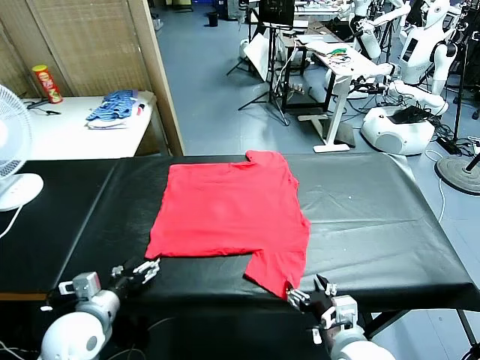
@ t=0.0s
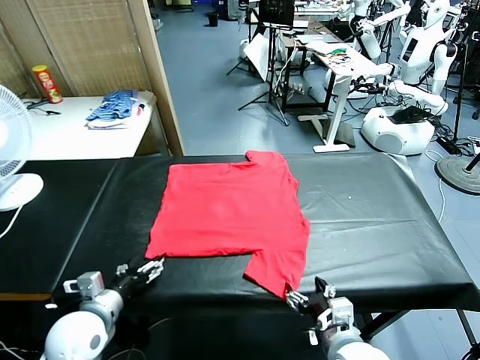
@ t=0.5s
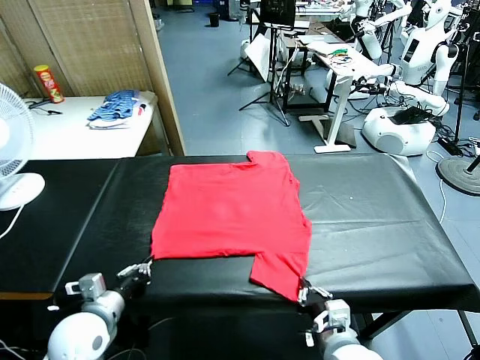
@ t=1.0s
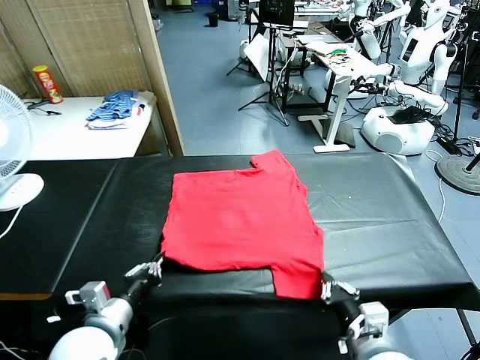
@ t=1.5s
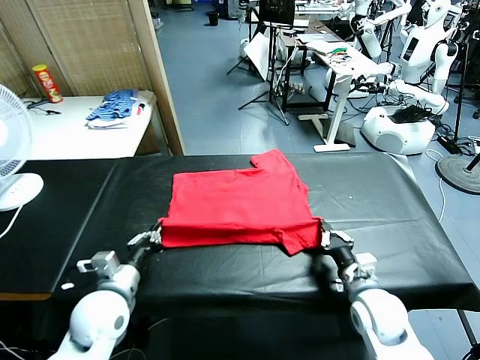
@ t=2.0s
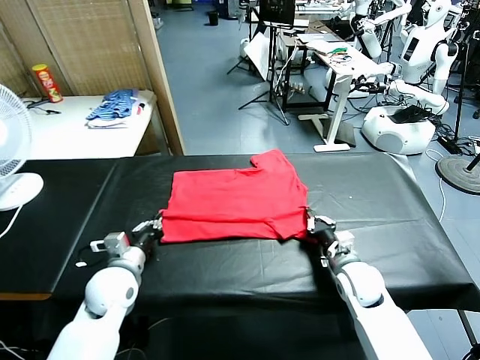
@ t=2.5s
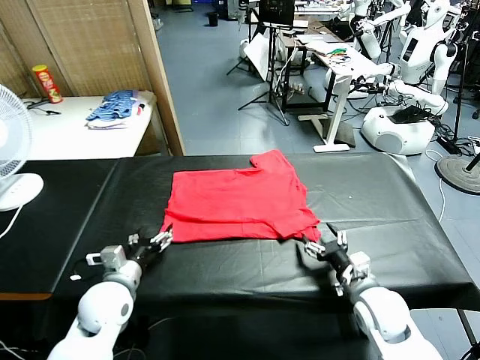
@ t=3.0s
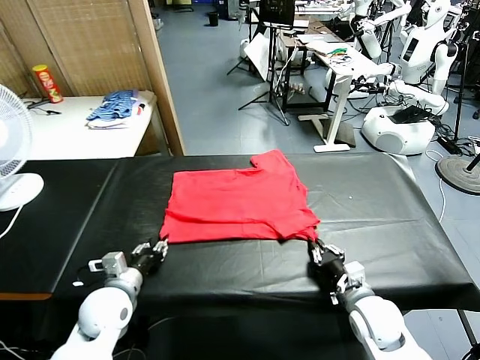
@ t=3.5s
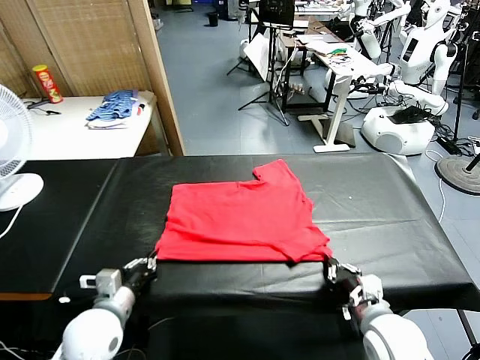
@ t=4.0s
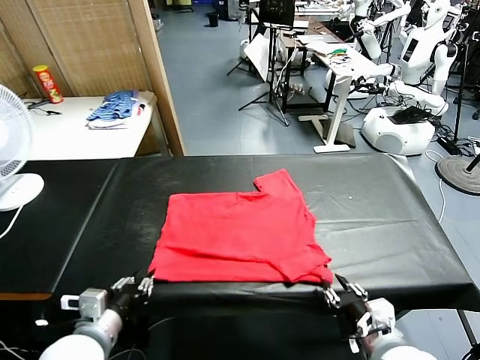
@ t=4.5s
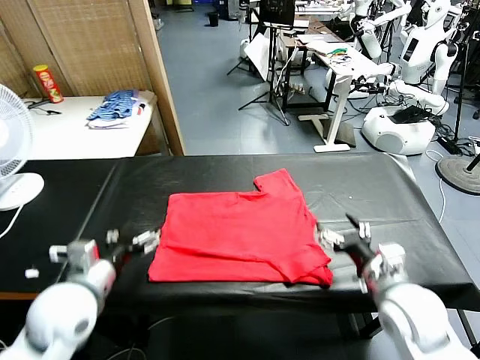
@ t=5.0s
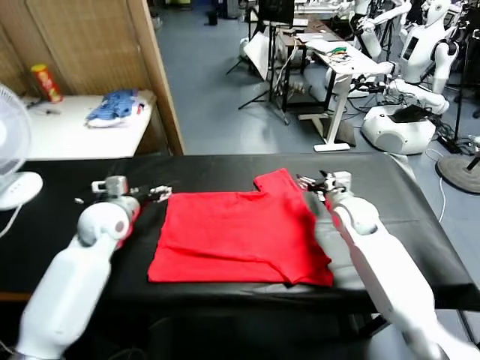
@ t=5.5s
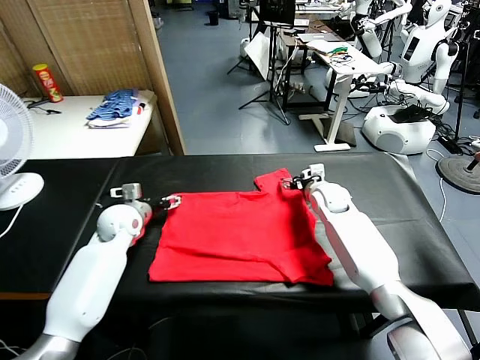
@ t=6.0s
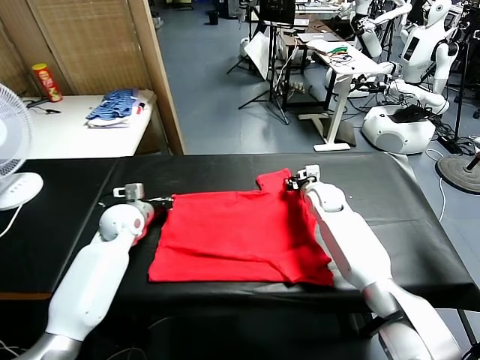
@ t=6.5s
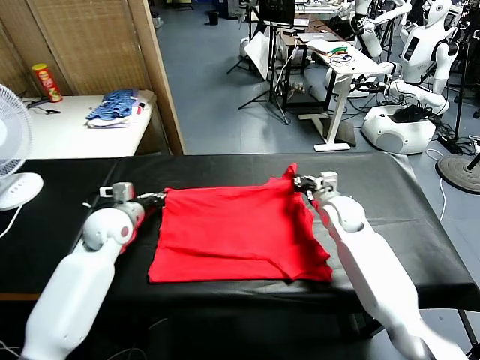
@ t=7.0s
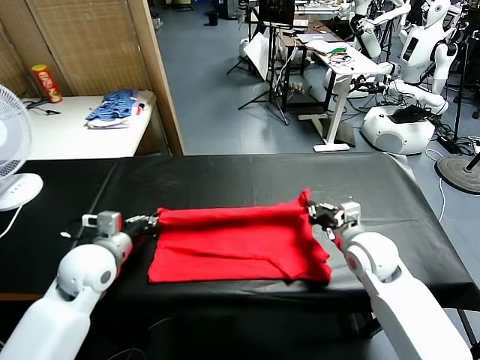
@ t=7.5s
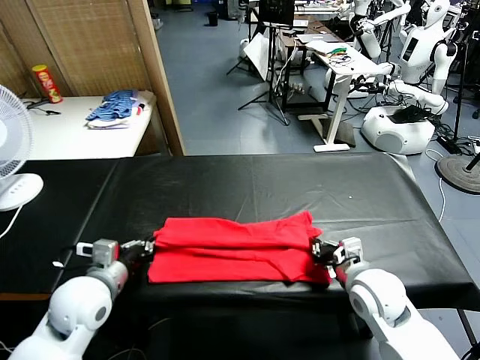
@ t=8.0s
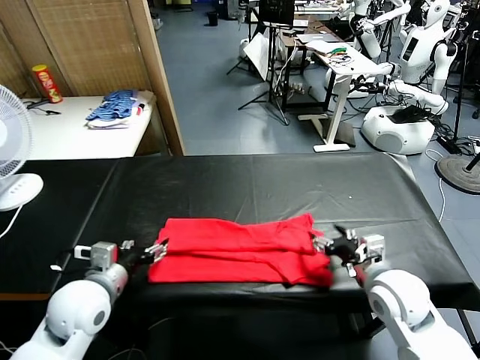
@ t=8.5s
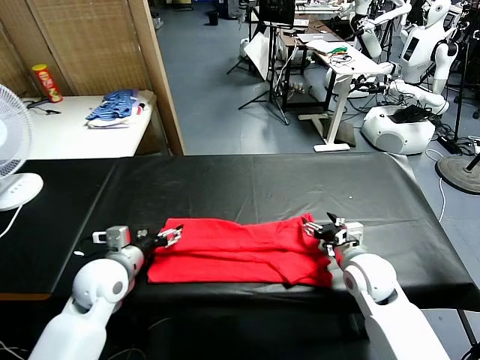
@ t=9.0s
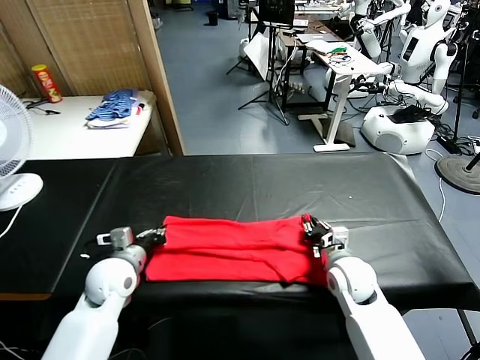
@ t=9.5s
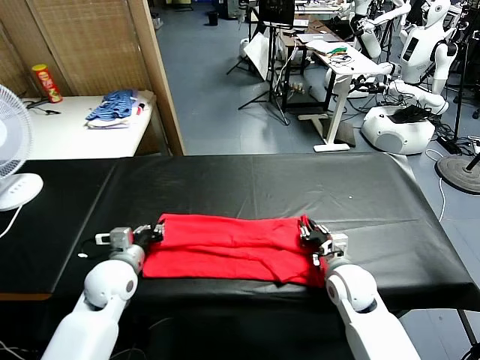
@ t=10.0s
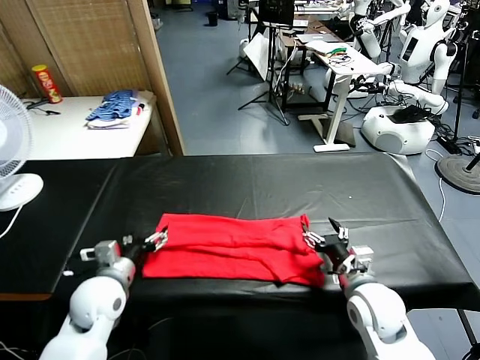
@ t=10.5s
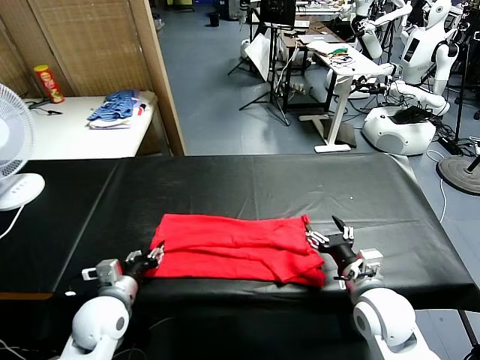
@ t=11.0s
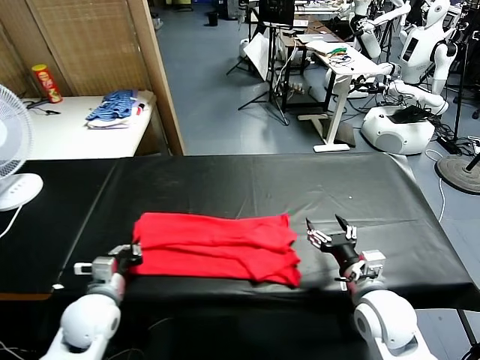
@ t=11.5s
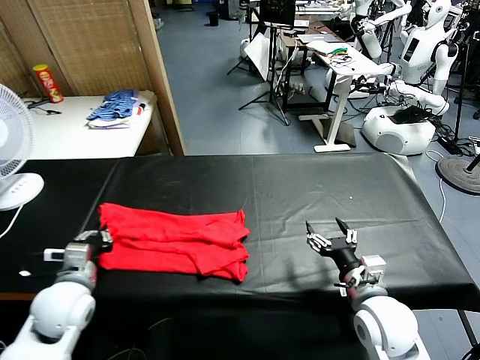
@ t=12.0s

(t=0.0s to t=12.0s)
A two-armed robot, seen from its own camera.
Task of the whole recording: fold and organize the clothes.
Step, t=0.0s - t=1.0s: use both grippers simultaneously to clamp the lower edge of the clothing fabric.
Step, t=1.5s - t=2.5s: use both grippers to drag the lower edge of the fabric forward and fold it over the upper edge.
Step, t=3.0s - t=4.5s: Drag the clothes downward with both gripper.
Step, t=5.0s - t=6.5s: use both grippers simultaneously to clamp the upper edge of the clothing fabric.
Step, t=7.0s - t=8.0s: use both grippers to drag the upper edge of the fabric backward and fold it over the lower edge.
Step, t=9.0s - t=11.0s: use the left gripper to clamp the left edge of the fabric.
t=2.0s - t=4.0s: The right gripper travels backward and upward by roughly 15 cm, and opens, then closes once more. The left gripper travels backward by approximately 5 cm, and opens, then closes again.
t=4.0s - t=6.0s: The left gripper travels forward by approximately 25 cm, and opens up. The right gripper goes about 40 cm forward, and opens up.
t=6.0s - t=8.0s: The two grippers go about 25 cm backward. The left gripper closes up; the right gripper closes its fingers.
t=8.0s - t=10.0s: The right gripper heads downward, covering approximately 5 cm, and opens, while the left gripper travels forward and downward by some 10 cm, and opens up.
t=10.0s - t=12.0s: The left gripper shifts some 10 cm backward and to the left, and closes up; the right gripper is displaced backward and upward by about 10 cm, and opens up.

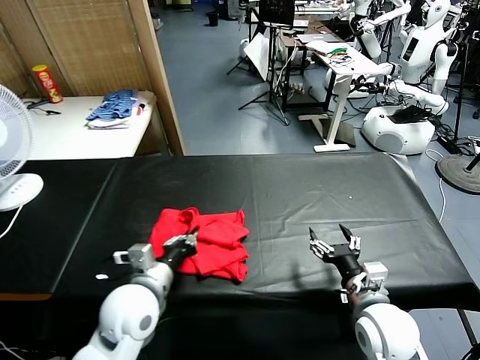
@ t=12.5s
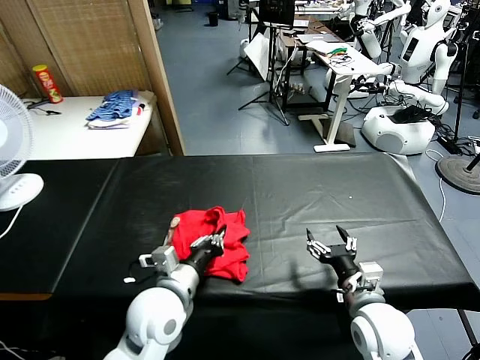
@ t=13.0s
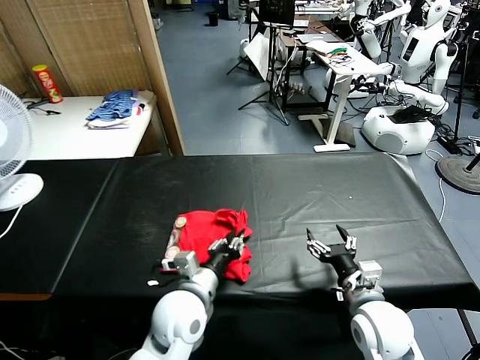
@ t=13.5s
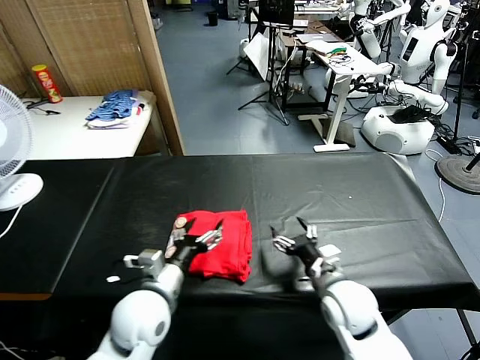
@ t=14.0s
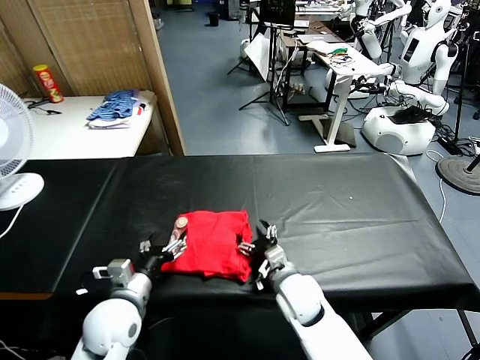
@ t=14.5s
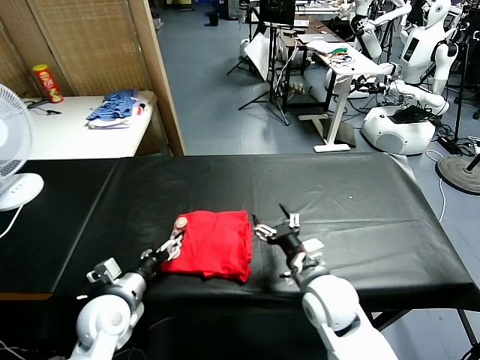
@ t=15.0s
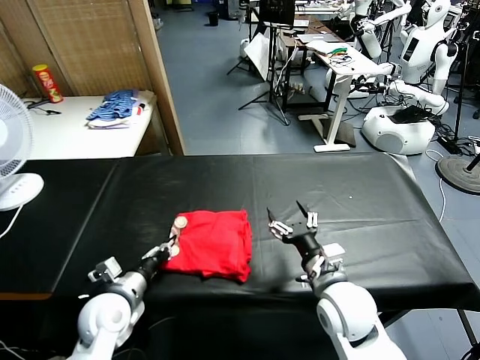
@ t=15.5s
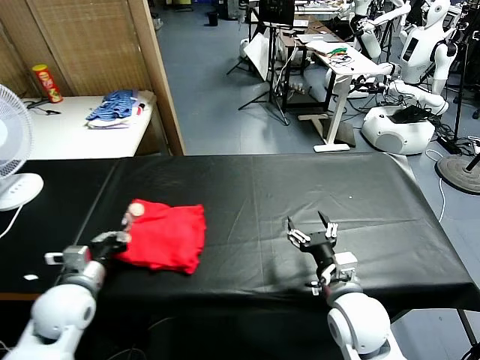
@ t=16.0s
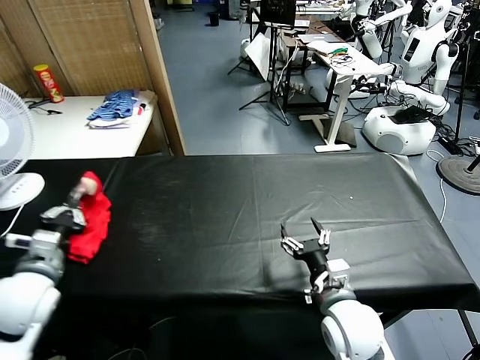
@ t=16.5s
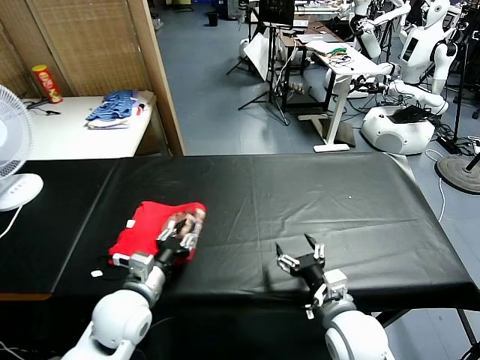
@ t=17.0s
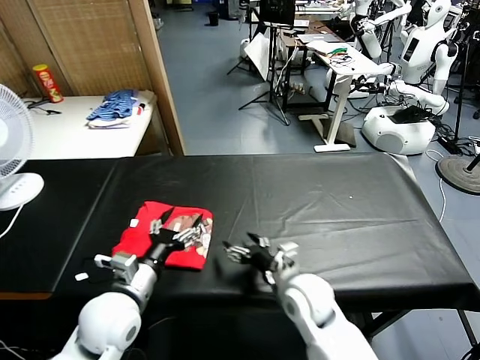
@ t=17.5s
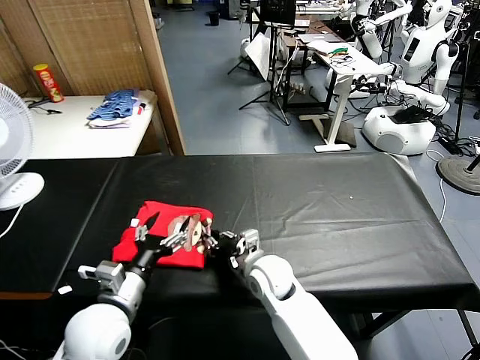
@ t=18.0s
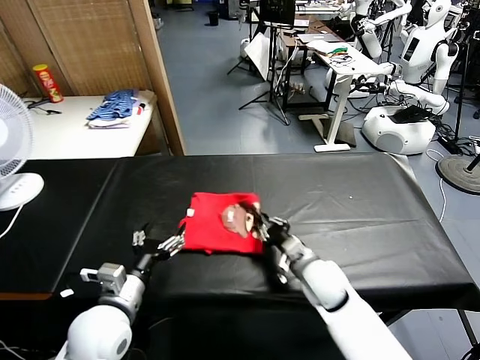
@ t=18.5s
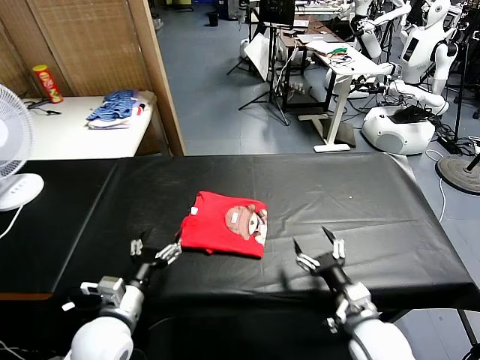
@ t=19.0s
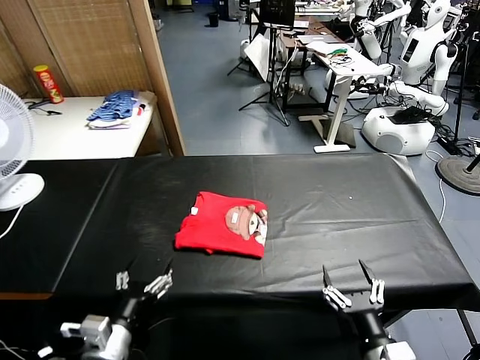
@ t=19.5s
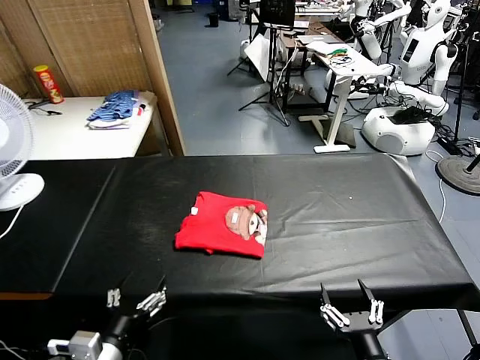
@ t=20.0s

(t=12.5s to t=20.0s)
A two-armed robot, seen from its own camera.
Task of the whole recording: fold and organize the clothes.
Step, t=14.0s - t=17.0s: Flip the folded clothes over with left gripper.
Step, t=17.5s - t=18.5s: Drag the clothes to the center of the table.
t=12.5s - t=14.5s: The left gripper moves roughly 5 cm, and opens, while the right gripper heads to the left, forward and downward, covering approximately 15 cm.
t=14.5s - t=16.5s: The left gripper shifts about 15 cm to the left and upward, and closes up, while the right gripper shifts some 15 cm backward, to the right and upward.
t=16.5s - t=18.0s: The left gripper goes some 15 cm to the right, and opens up. The right gripper goes approximately 20 cm to the left, forward and downward, and closes.
t=18.0s - t=20.0s: The left gripper moves backward, approximately 10 cm, while the right gripper is displaced backward and to the right by roughly 35 cm, and opens up.
